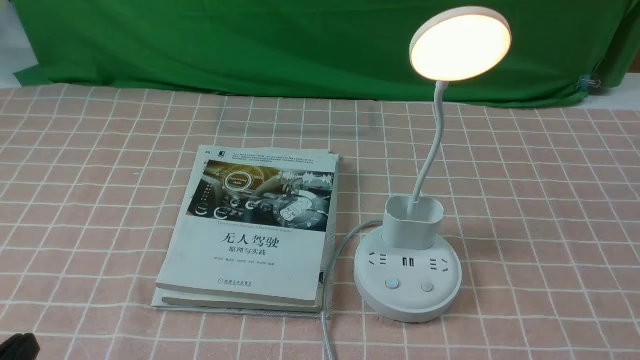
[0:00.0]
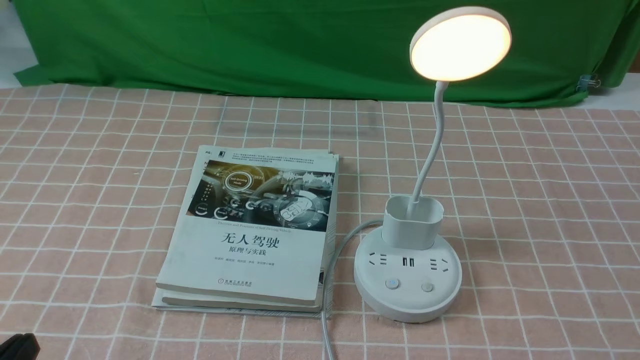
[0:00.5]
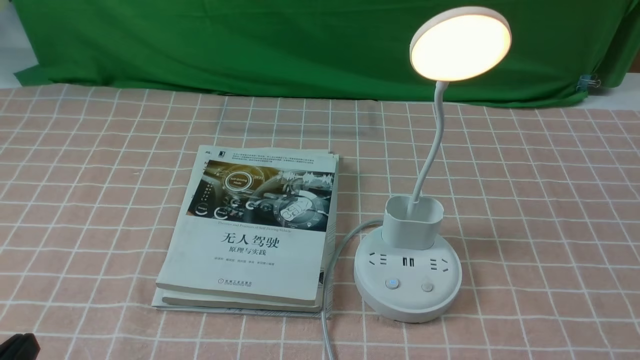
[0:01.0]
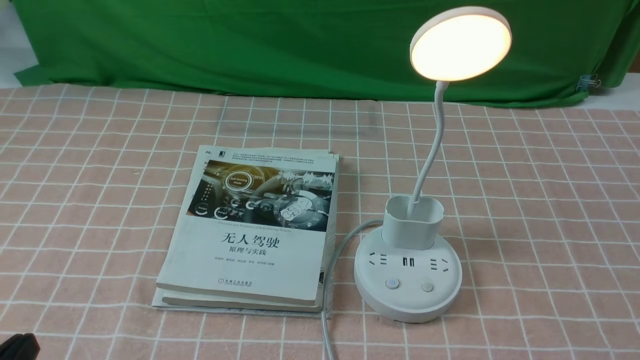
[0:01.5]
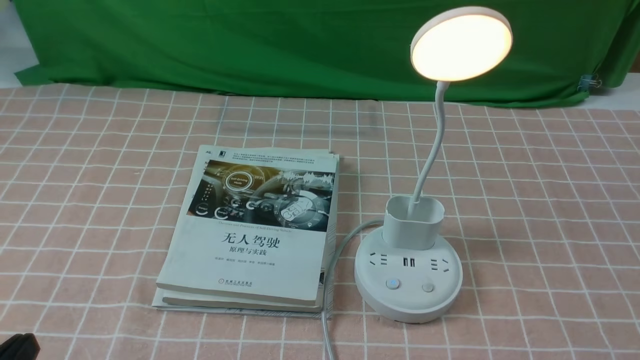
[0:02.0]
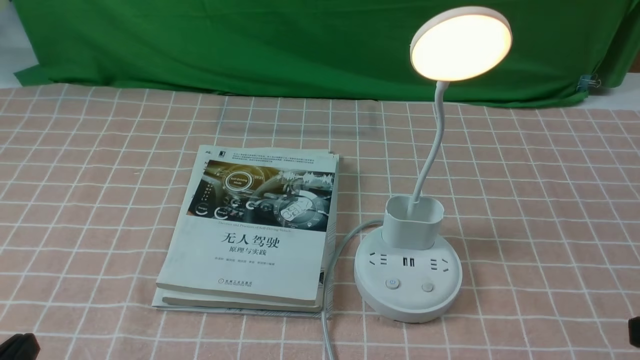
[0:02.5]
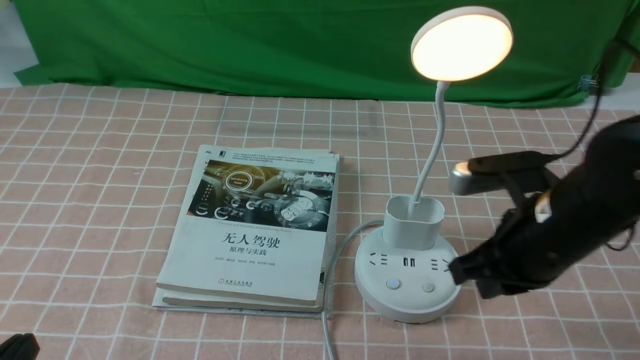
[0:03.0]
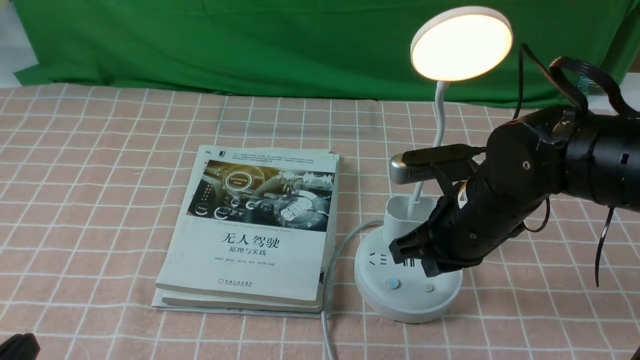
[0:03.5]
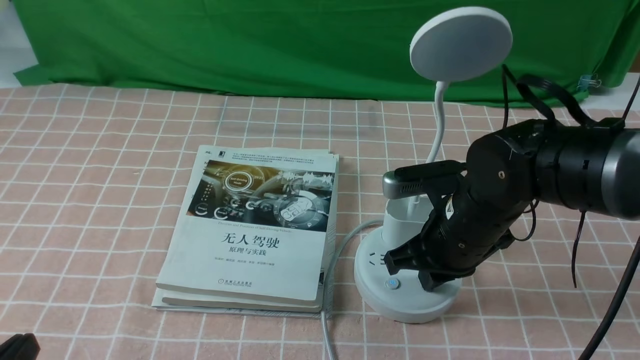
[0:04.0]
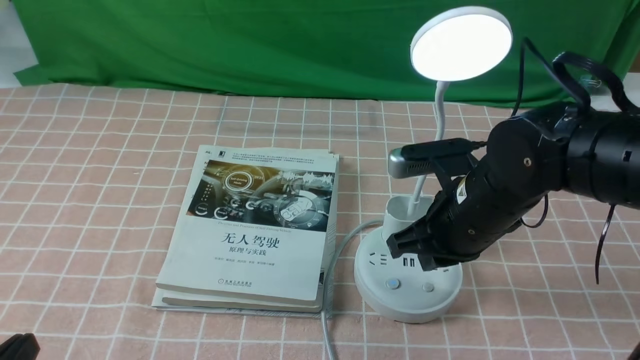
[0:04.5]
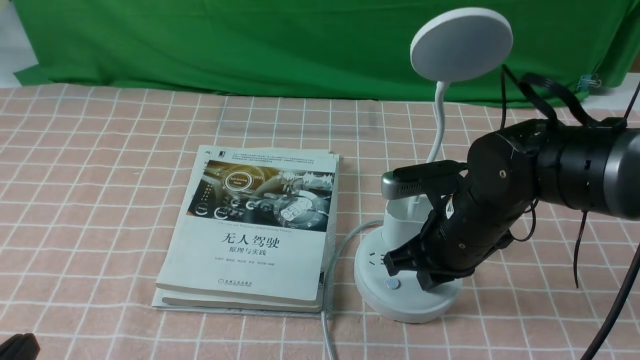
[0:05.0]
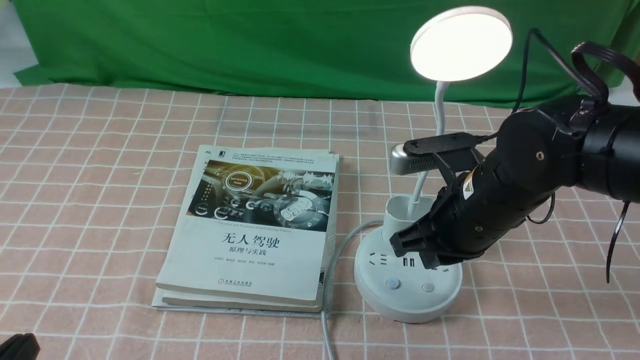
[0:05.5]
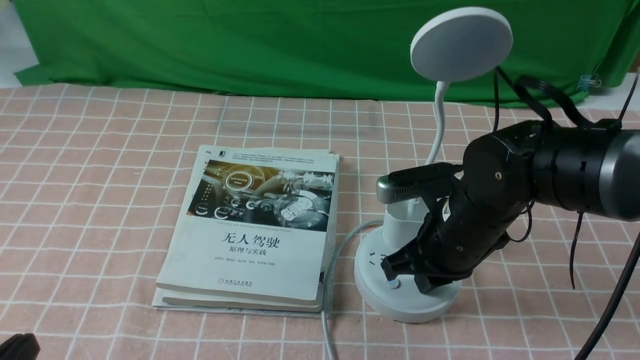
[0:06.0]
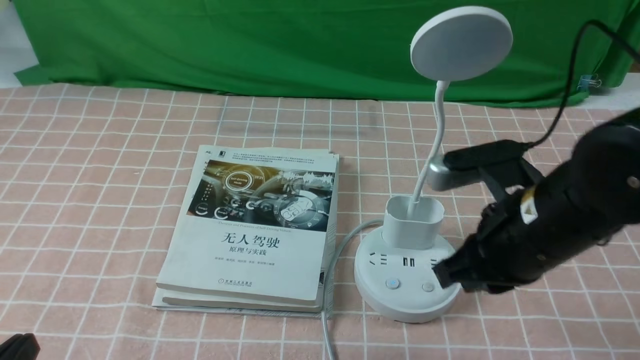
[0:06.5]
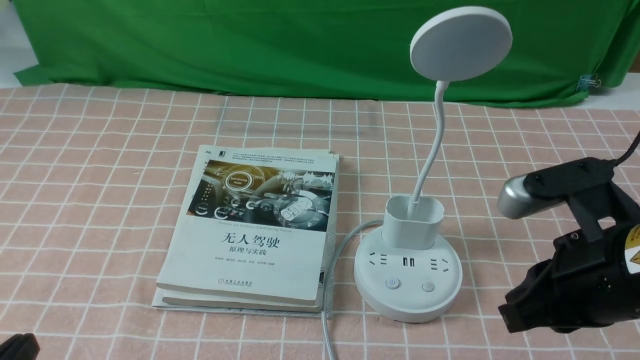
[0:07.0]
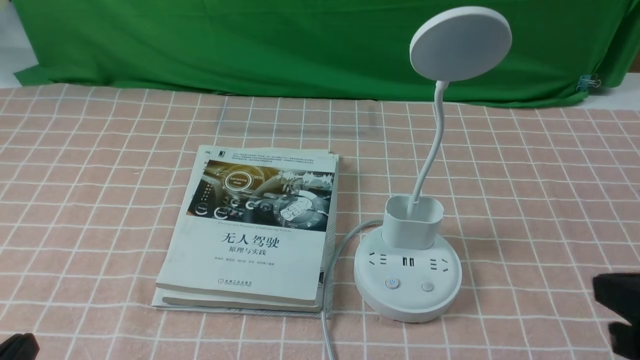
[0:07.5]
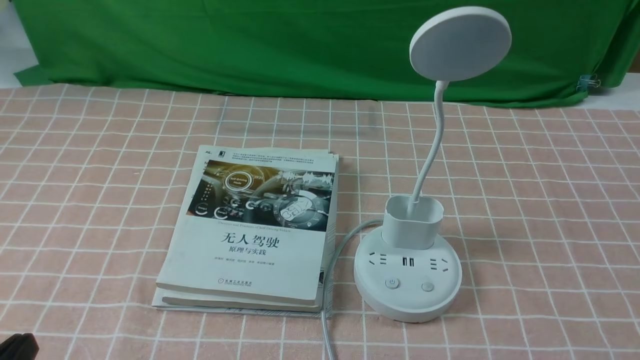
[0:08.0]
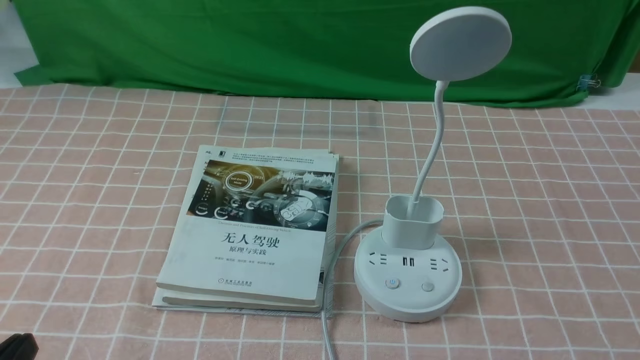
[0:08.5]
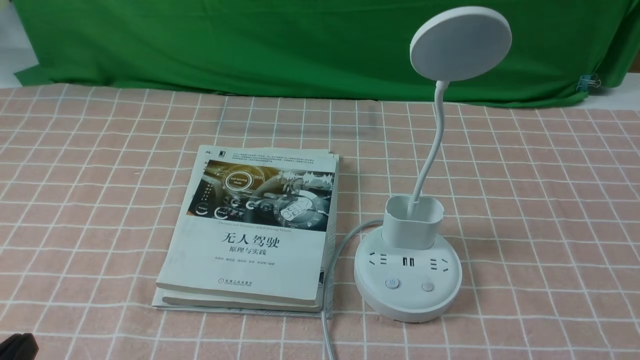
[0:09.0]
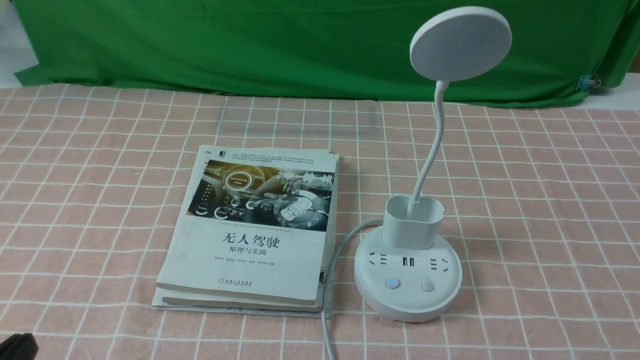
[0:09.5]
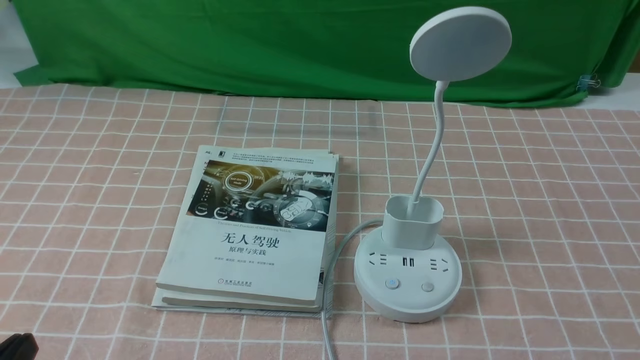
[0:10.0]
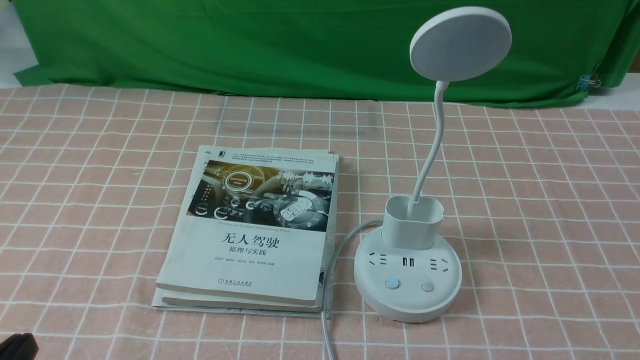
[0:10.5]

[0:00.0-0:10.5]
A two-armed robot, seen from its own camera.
Task of the whole recording: turn off the table lamp on the pink coffee tablecloth by hand.
Step, 0:00.0 to 0:06.0: use the right arm to press the button switch on the lamp holder.
0:02.0 to 0:04.0: The right gripper travels forward and to the left by roughly 30 cm, and closes its fingers.
0:04.0 to 0:06.5: The right gripper shifts roughly 10 cm upward and backward.
0:06.5 to 0:08.5: The right gripper shifts roughly 25 cm backward and to the right.

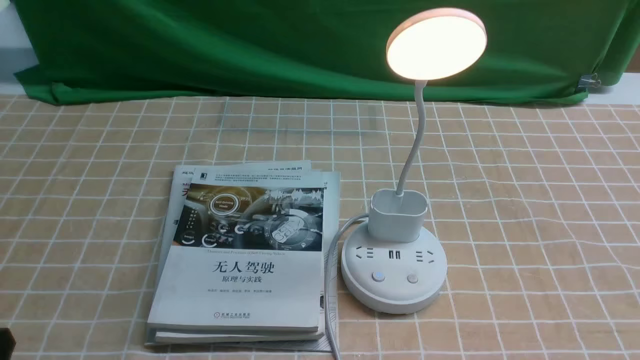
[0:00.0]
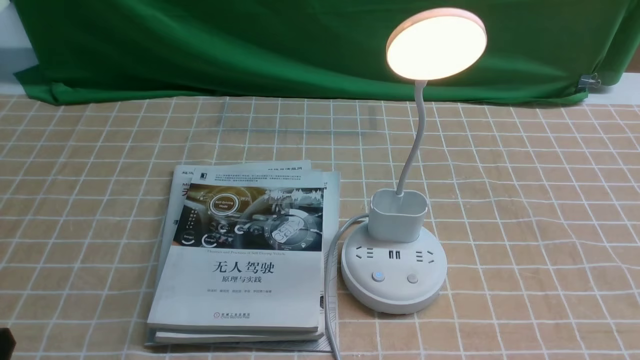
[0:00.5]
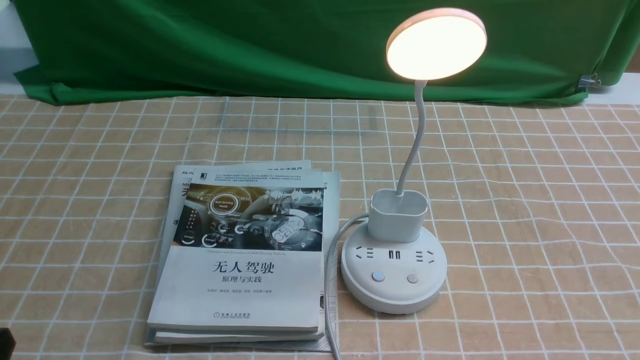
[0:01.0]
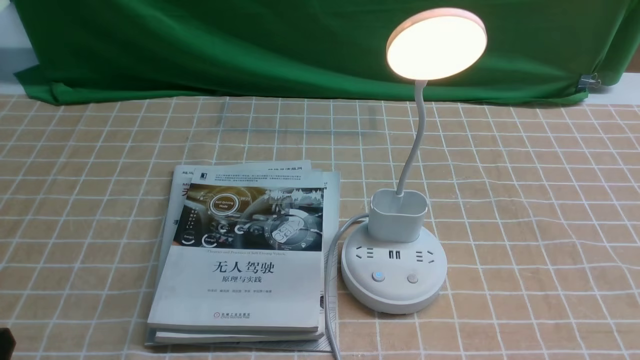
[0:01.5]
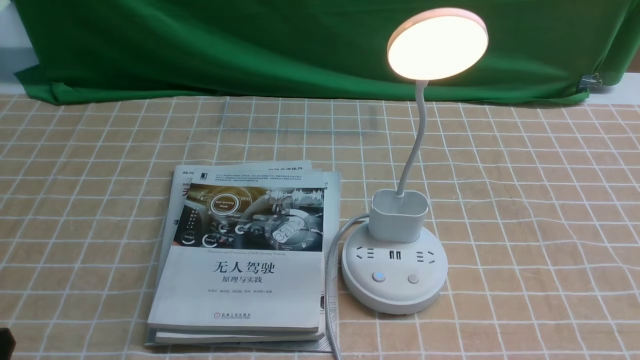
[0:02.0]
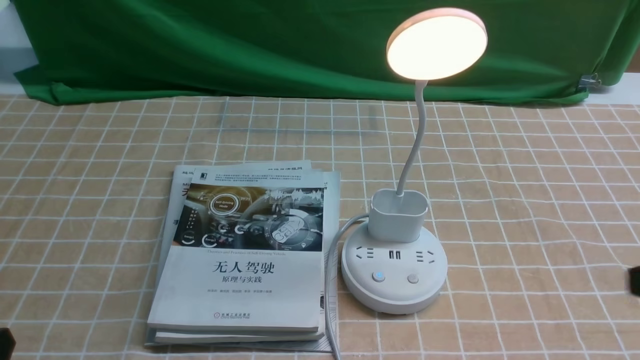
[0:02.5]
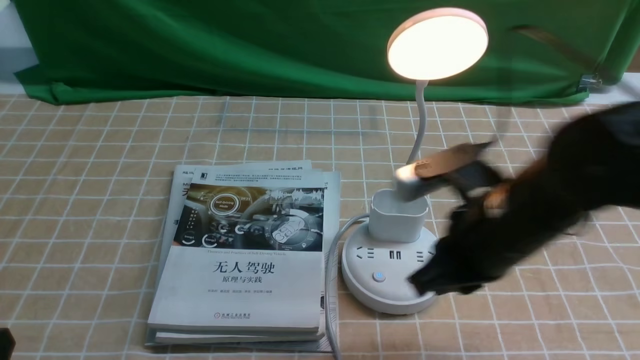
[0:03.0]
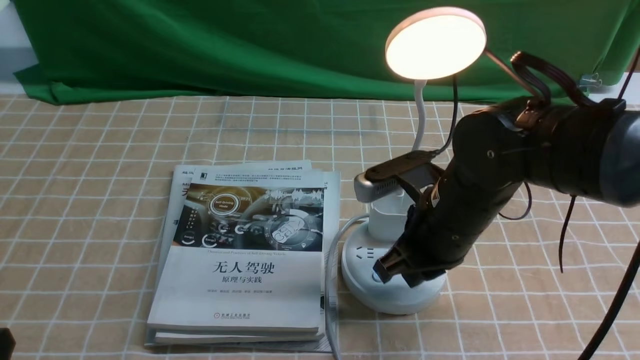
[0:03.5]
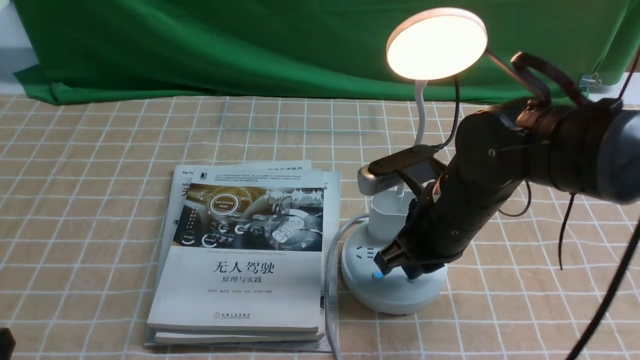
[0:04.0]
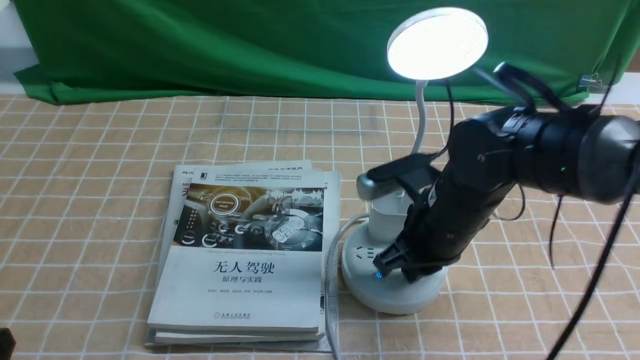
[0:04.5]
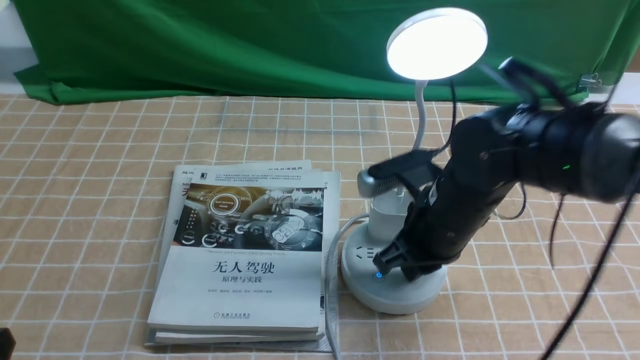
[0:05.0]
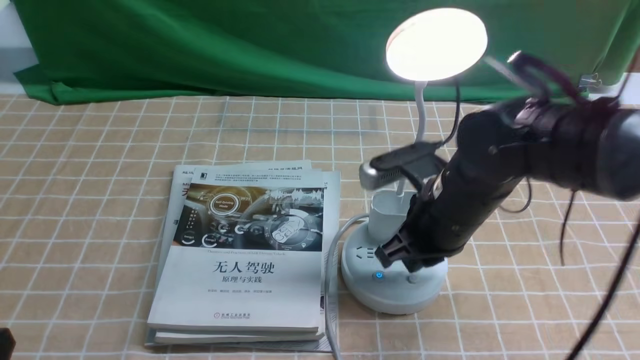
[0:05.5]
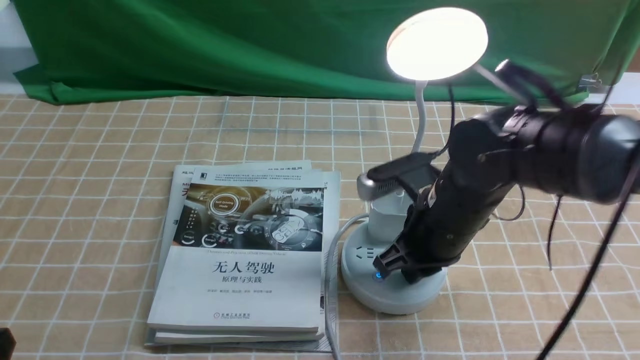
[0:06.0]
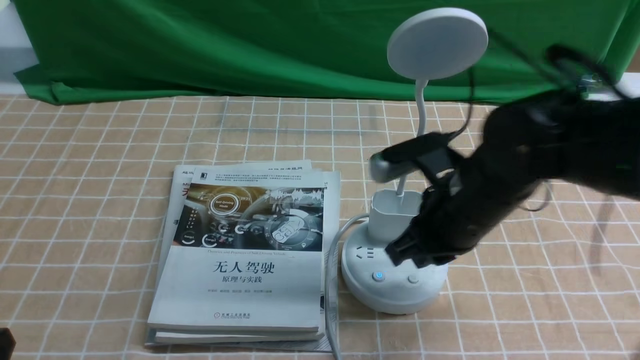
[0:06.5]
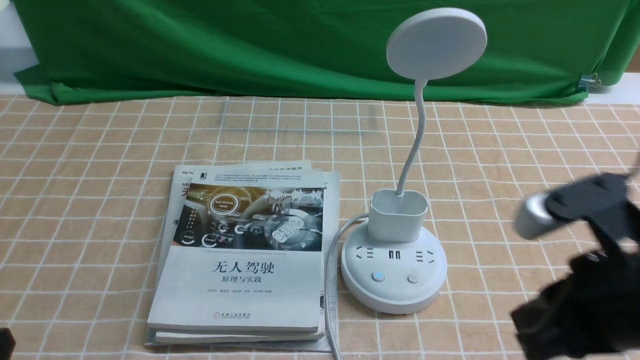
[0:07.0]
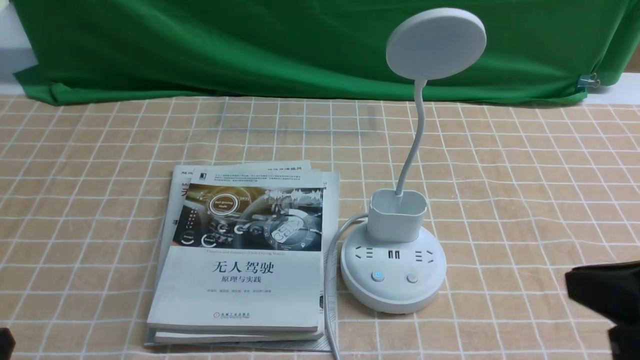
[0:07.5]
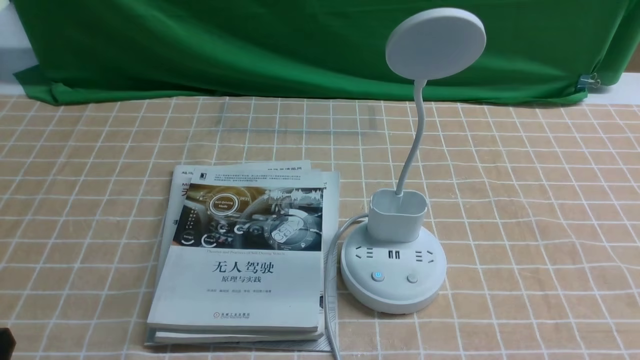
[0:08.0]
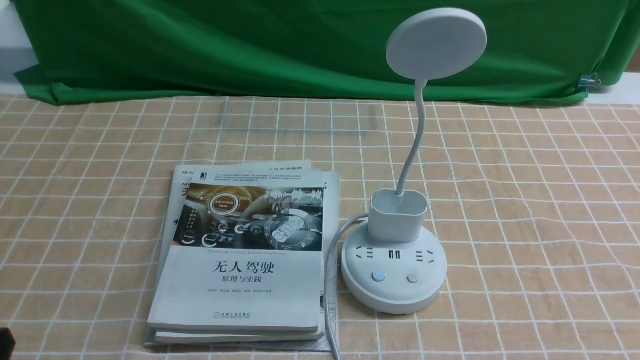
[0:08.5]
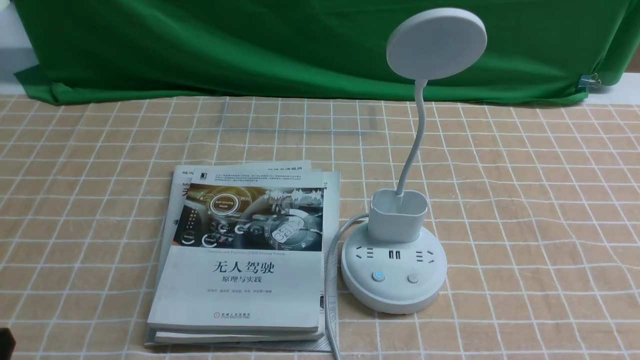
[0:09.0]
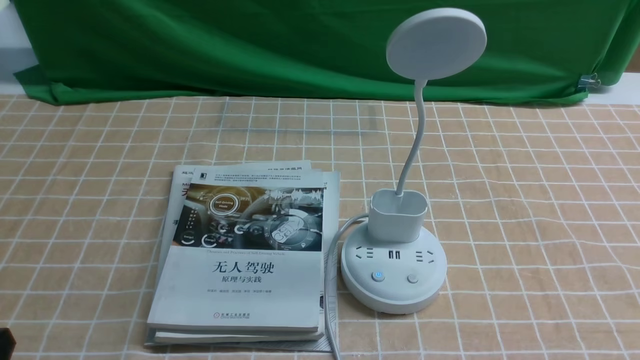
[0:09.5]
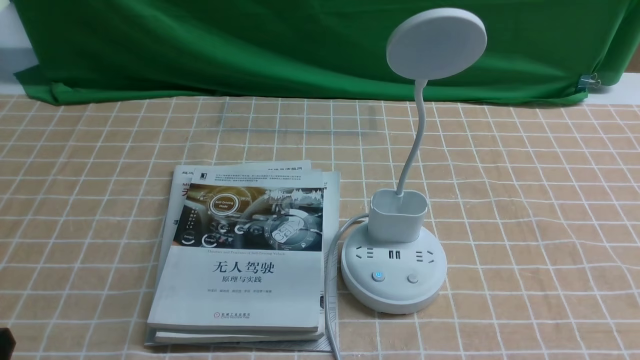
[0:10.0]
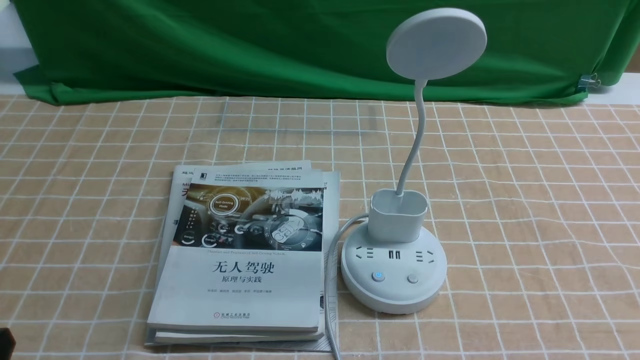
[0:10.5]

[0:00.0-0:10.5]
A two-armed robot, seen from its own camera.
Task of the whole recording: turn off the desk lamp on the light coffee tablecloth by hand.
Step, 0:00.0 to 0:05.5: use the right arm to press the button switch on the lamp holder.
0:02.0 to 0:04.0: The right gripper goes roughly 30 cm forward and to the left, and closes its fingers.
0:04.0 to 0:06.5: The grippers make only small movements.
0:06.5 to 0:08.5: The right gripper goes roughly 30 cm backward and to the right.
